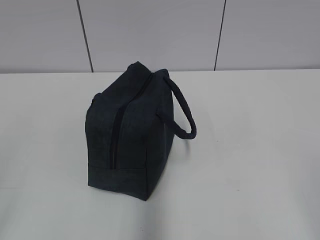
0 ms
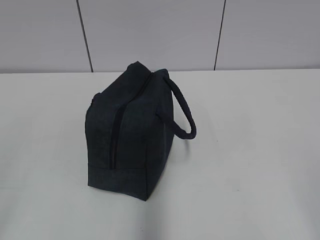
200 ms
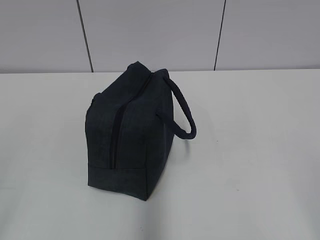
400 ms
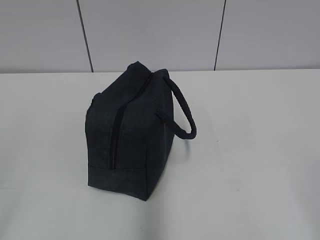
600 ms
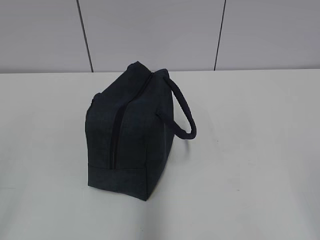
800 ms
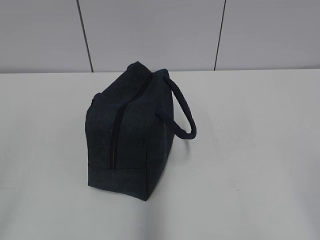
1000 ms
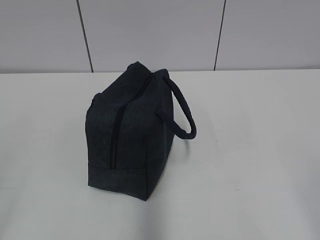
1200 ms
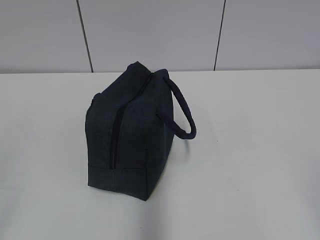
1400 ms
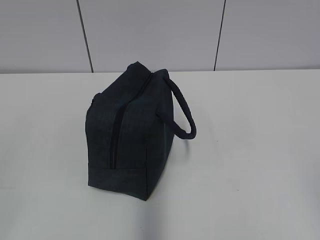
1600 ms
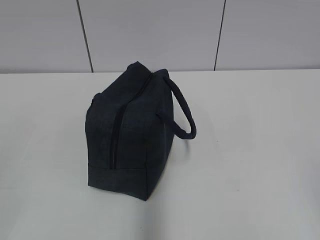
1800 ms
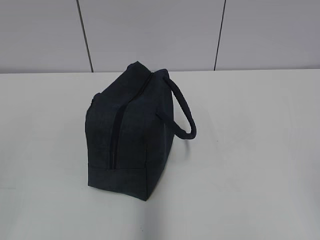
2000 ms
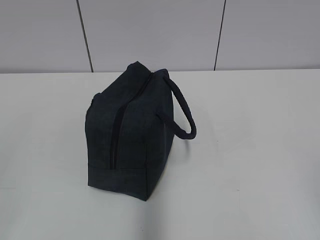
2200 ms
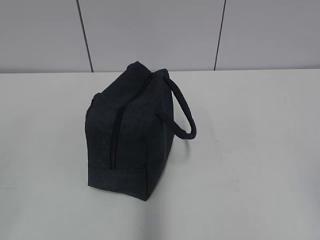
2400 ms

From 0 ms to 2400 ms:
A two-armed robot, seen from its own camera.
From 0 ms to 1200 ms: Neither gripper changes place.
